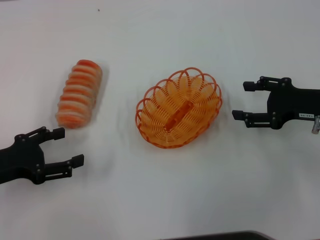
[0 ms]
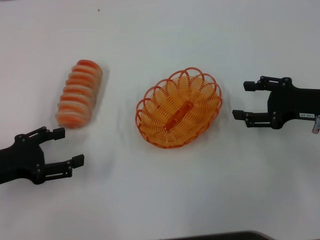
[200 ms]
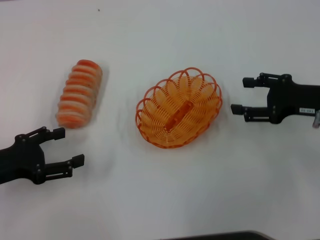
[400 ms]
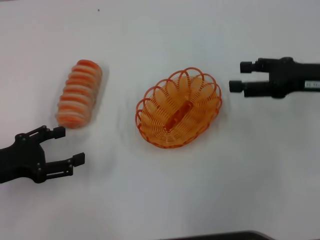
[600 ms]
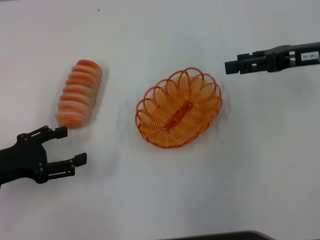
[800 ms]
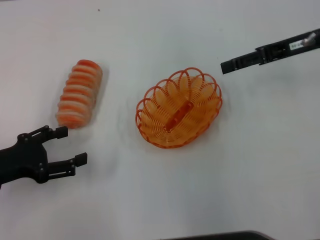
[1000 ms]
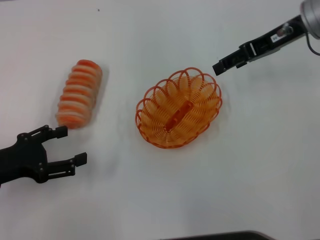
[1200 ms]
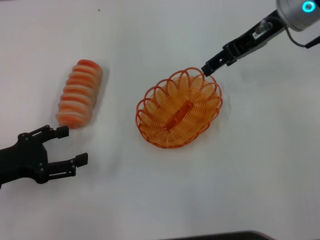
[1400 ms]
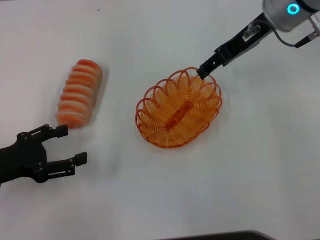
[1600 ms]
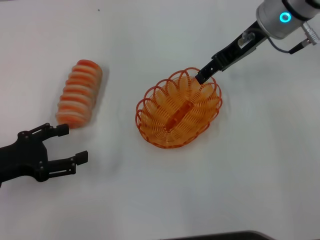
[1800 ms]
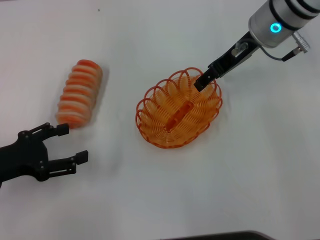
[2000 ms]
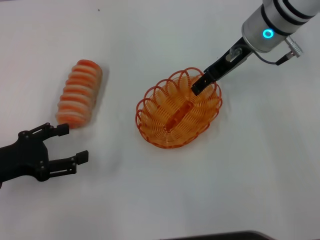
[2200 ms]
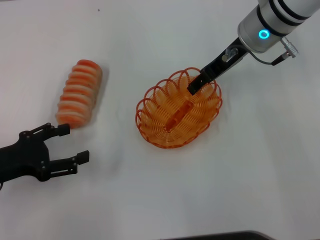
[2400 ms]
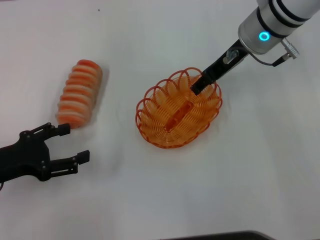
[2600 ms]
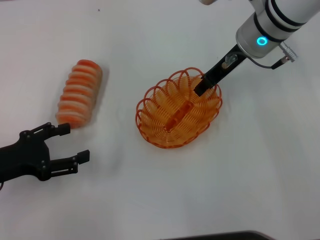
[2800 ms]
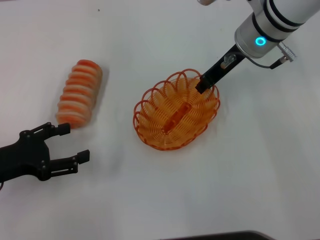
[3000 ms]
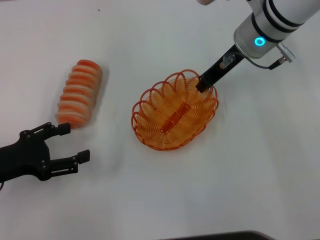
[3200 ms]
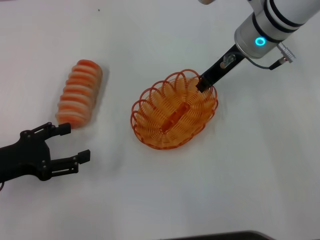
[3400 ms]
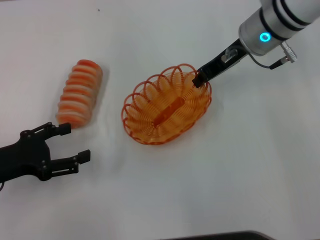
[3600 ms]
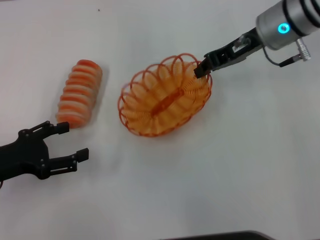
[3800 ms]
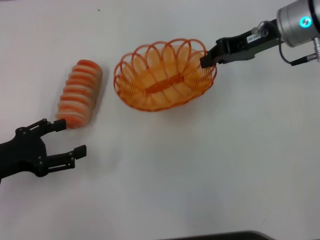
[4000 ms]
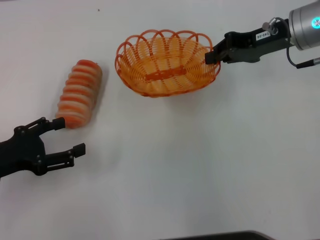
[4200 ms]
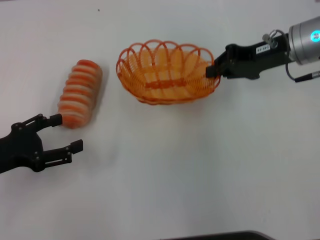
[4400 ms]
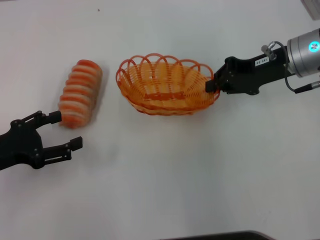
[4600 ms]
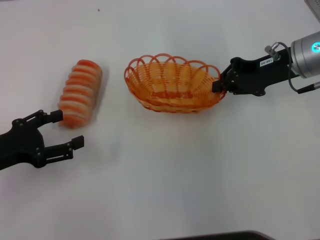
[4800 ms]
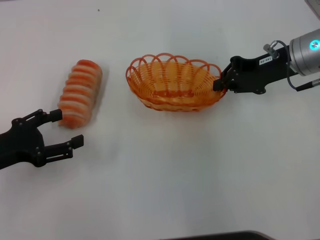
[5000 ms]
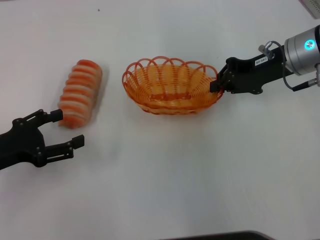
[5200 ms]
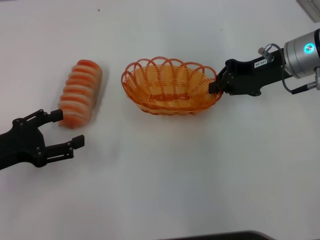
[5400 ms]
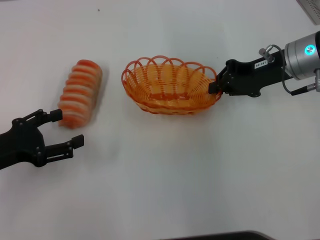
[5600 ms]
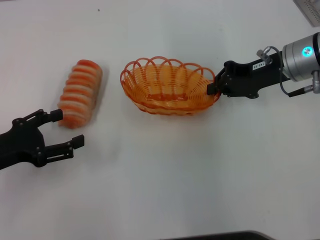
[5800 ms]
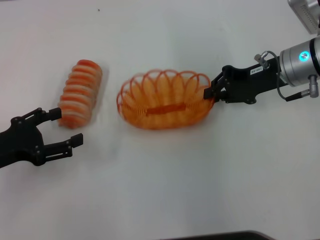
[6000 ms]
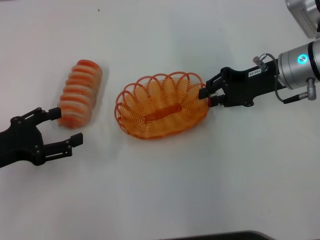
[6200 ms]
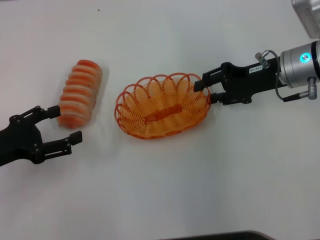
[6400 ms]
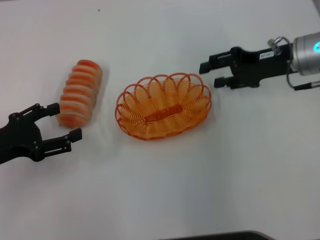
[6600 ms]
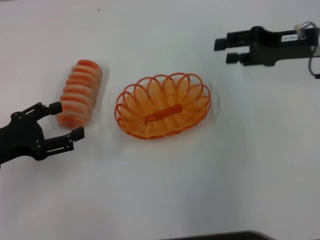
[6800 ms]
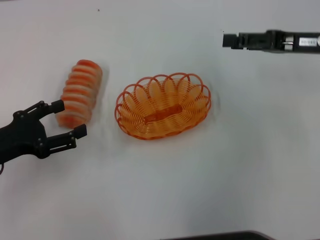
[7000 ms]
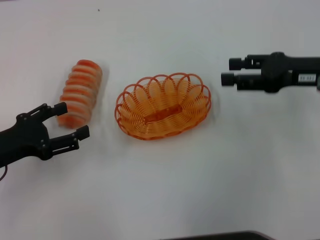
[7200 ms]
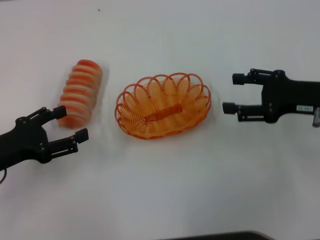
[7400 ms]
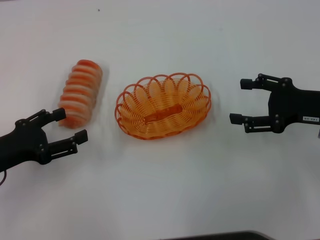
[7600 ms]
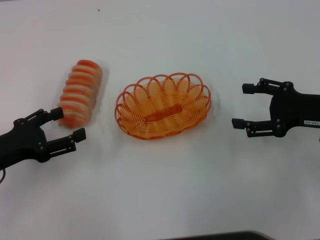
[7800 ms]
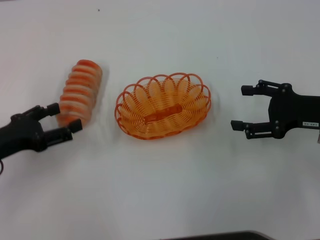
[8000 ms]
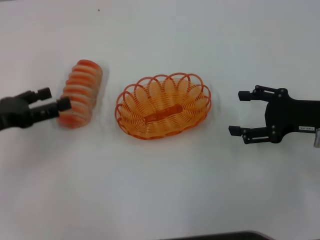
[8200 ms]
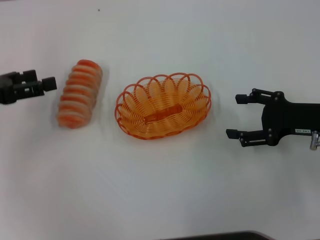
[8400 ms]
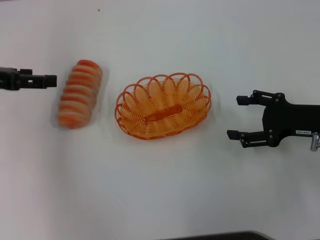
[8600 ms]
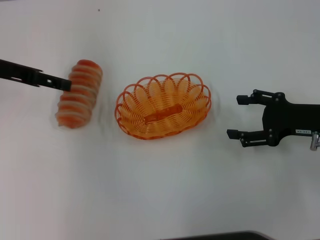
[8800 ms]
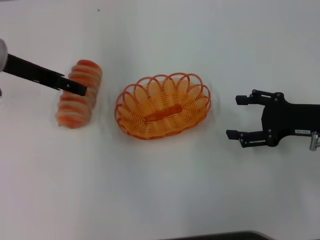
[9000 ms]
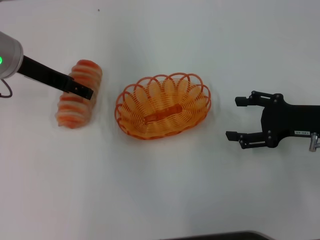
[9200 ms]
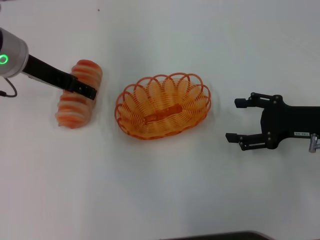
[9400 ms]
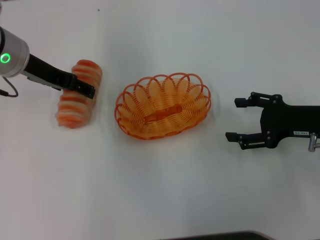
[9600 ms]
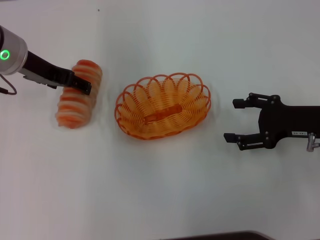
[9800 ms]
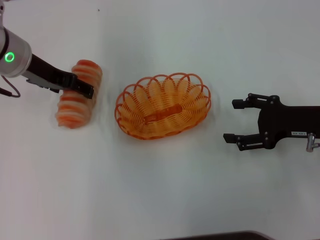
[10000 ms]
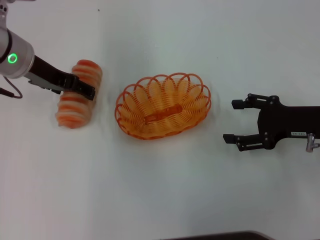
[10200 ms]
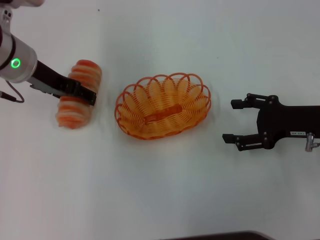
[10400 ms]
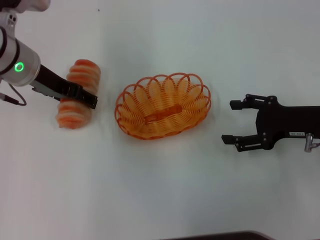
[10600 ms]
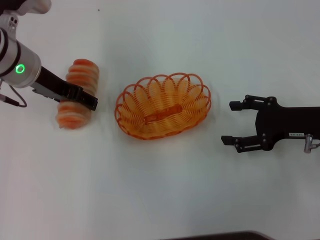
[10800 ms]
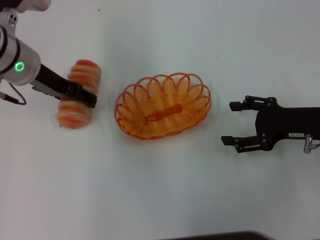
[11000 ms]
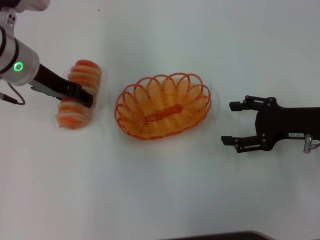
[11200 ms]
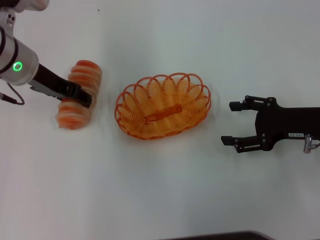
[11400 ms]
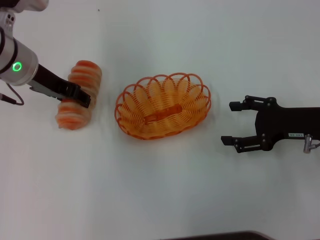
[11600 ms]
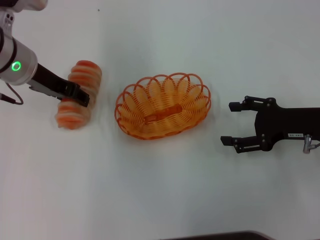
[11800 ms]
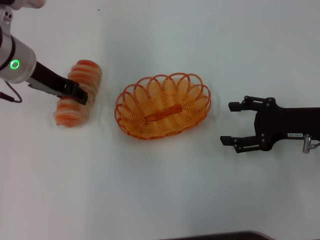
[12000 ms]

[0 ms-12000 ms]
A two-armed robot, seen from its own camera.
Step, 0 ms to 4000 ms: Pick up the basket with the right gripper.
Step, 4200 ms to 6600 ms: Place the basket in the center of view with the right gripper.
0 ms to 1600 ms: The right gripper is displaced forward, upward and to the left by roughly 20 cm.
1600 ms to 3000 ms: The right gripper shifts by approximately 5 cm, and closes its fingers.
3000 ms to 4400 ms: The right gripper is displaced to the right by approximately 10 cm, and closes.
4400 ms to 6000 ms: There are only small adjustments of the grippers.
6000 ms to 7600 ms: The right gripper heads backward and to the right, covering roughly 10 cm, and opens up.
7600 ms to 9000 ms: The left gripper shifts about 20 cm forward, upward and to the right.
9000 ms to 10400 ms: The grippers move only a little.
10400 ms to 12000 ms: The left gripper closes.

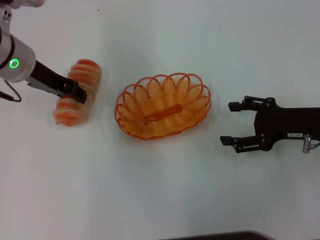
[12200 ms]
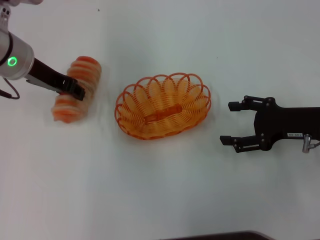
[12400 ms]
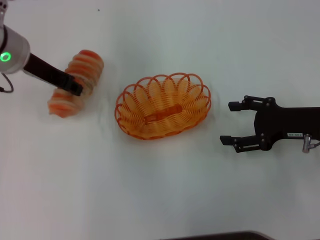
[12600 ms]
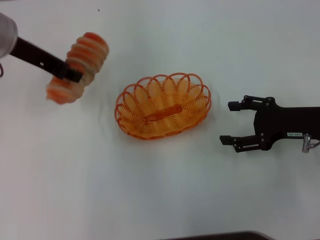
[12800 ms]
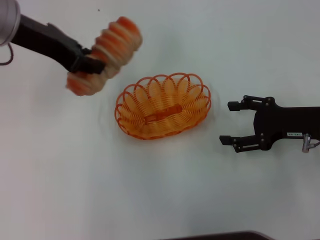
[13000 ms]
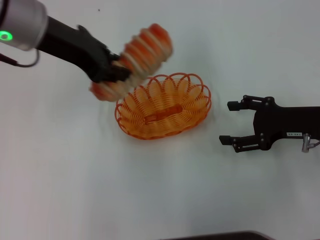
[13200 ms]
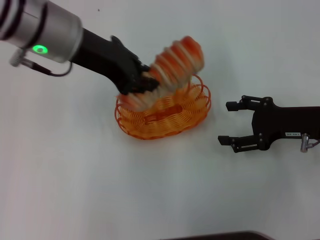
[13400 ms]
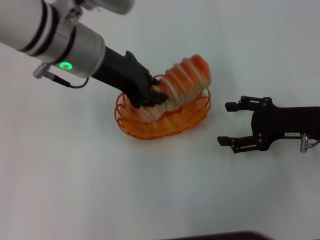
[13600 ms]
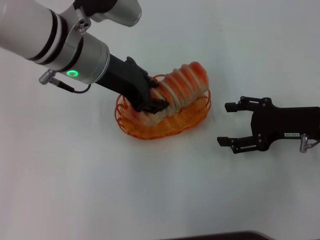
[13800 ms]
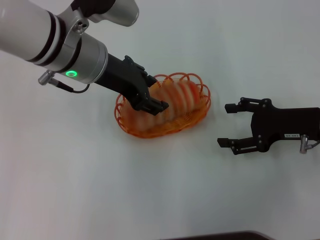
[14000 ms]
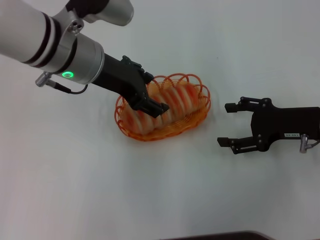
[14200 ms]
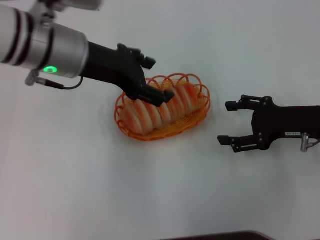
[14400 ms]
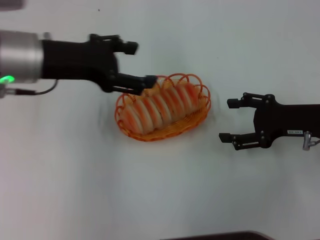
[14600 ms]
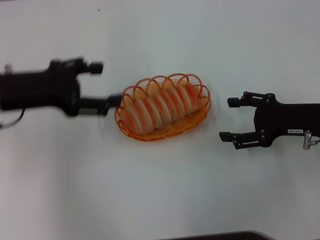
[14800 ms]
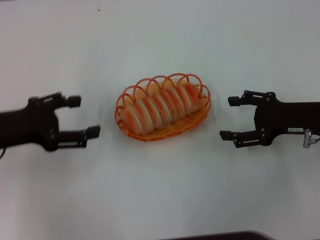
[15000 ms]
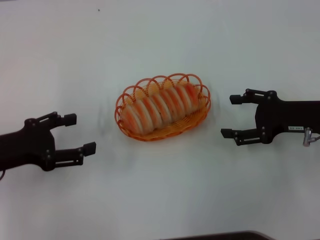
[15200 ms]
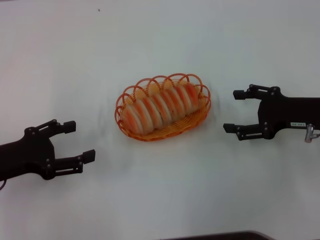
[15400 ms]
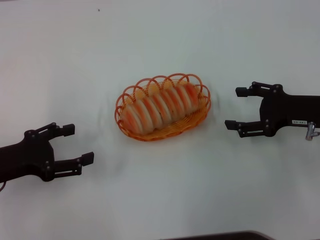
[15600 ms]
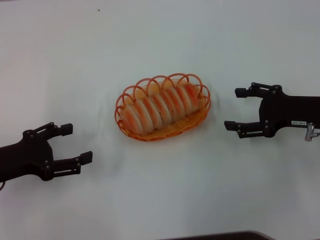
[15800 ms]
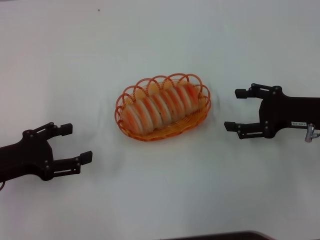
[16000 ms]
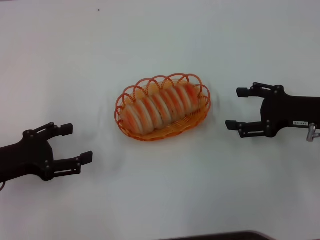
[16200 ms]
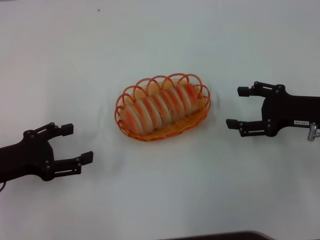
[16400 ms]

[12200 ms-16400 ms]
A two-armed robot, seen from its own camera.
Step, 13000 ms to 14400 ms: Place the long bread into the basket with the left gripper.
12200 ms to 13600 ms: The left gripper travels to the right by some 10 cm, and closes its fingers.
13600 ms to 15000 ms: The left gripper moves to the left, backward and downward, about 20 cm, and opens up.
15000 ms to 16400 ms: The left gripper is displaced downward by roughly 5 cm.

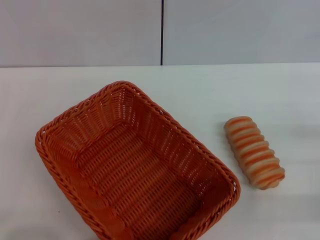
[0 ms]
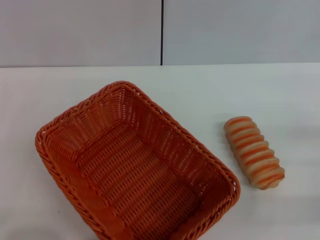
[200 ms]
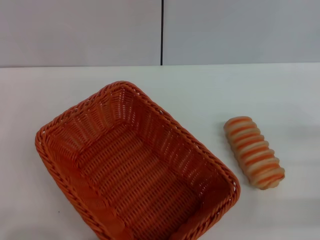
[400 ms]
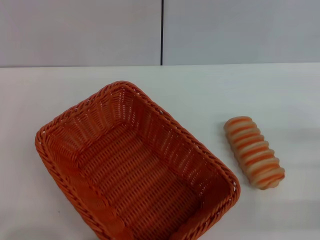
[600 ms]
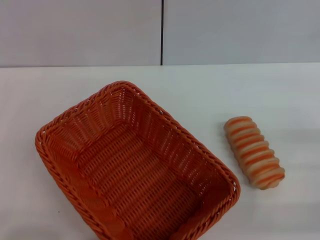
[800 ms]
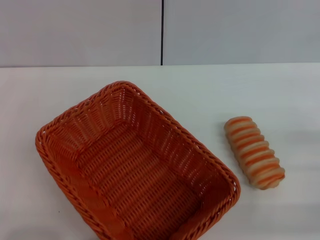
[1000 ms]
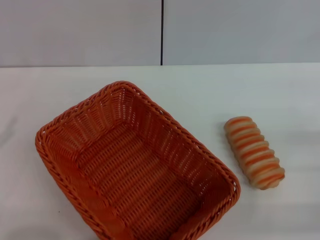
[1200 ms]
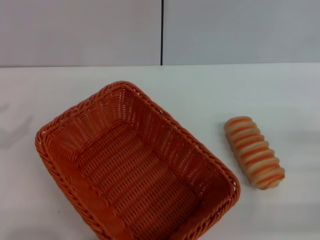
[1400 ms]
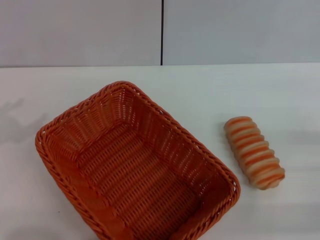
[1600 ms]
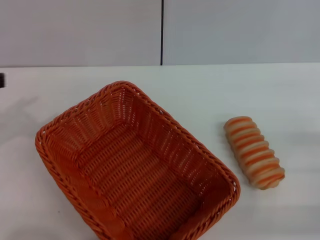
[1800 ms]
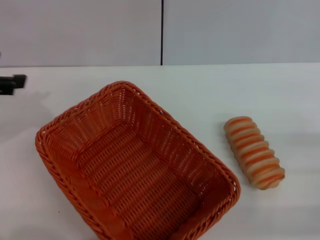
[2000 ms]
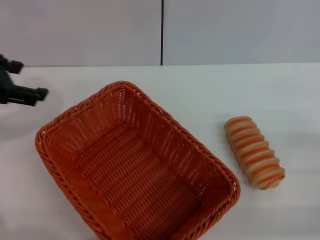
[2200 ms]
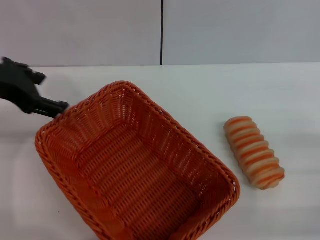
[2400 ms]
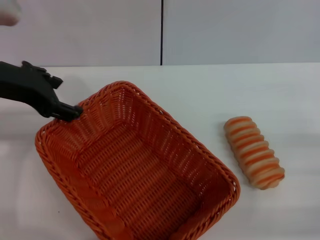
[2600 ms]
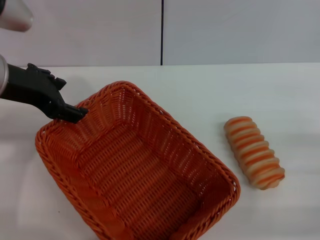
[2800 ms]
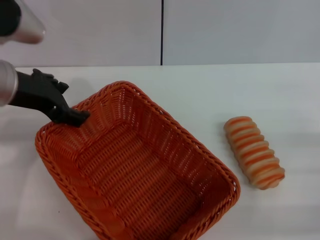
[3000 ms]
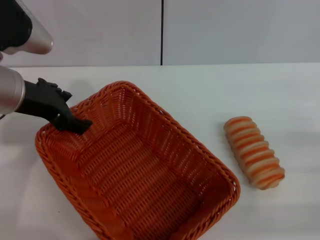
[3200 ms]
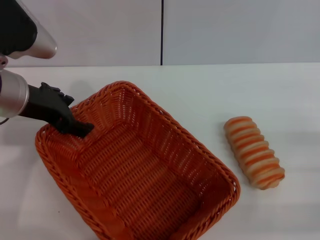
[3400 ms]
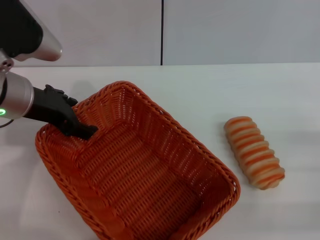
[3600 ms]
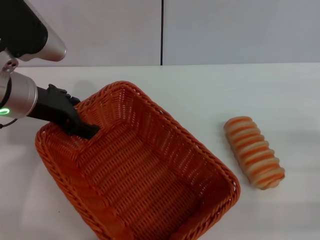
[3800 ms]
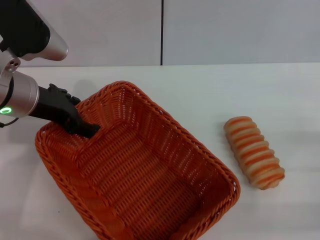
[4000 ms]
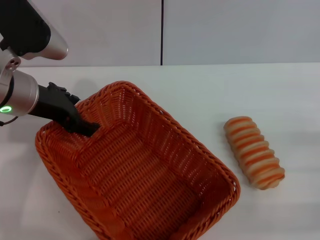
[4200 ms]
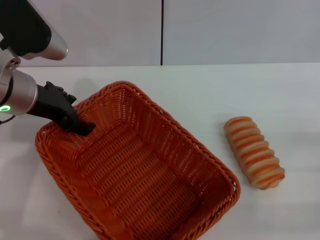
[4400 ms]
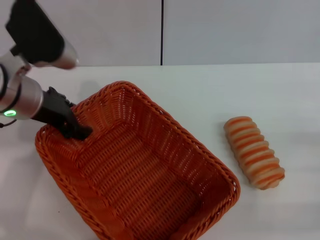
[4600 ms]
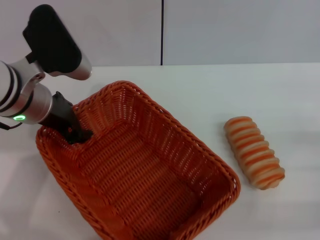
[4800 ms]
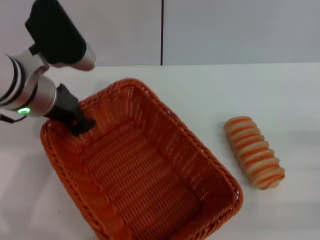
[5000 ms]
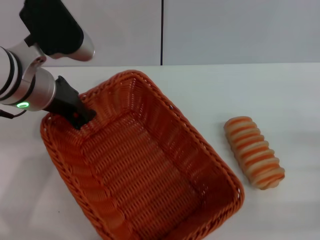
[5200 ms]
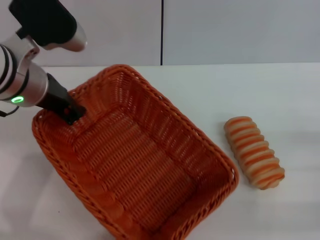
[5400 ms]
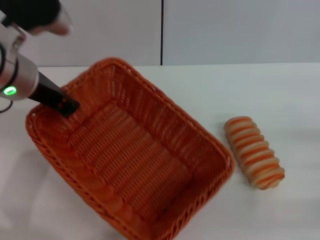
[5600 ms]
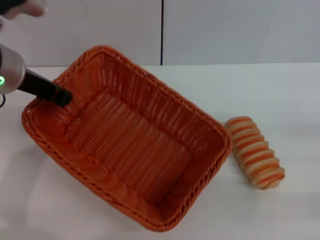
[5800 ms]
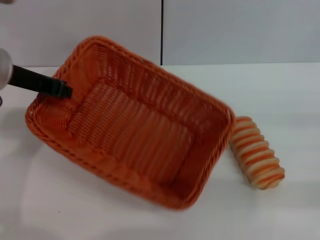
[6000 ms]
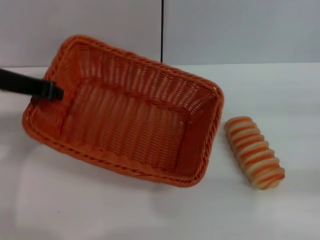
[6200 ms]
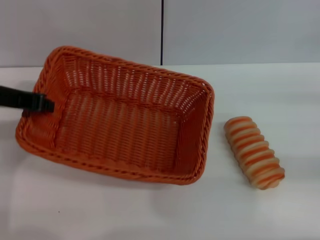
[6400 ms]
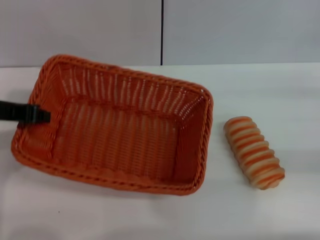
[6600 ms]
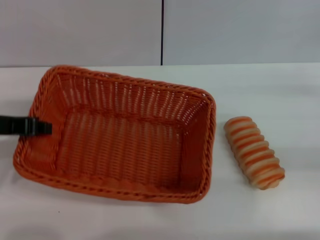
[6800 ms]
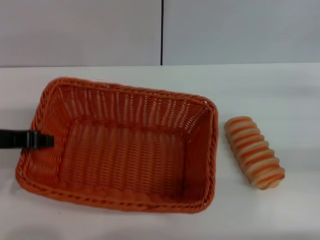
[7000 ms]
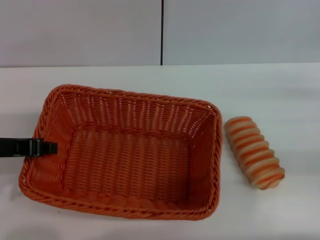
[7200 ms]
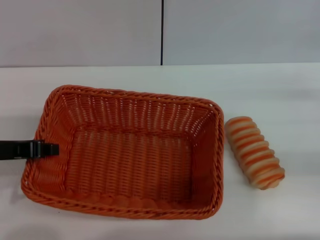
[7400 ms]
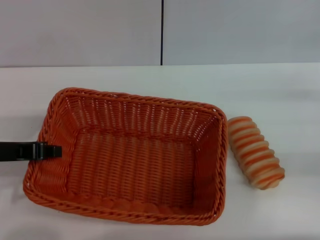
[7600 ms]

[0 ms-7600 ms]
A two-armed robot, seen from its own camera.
Step, 0 ms to 5800 ms: Pick up the light basket with the left gripper.
1600 ms to 3000 ms: The left gripper heads to the right and forward, covering about 20 cm.
3000 ms to 4600 ms: The grippers make only small movements.
4600 ms to 6000 ms: The right gripper ends up about 5 cm from where it was, while the left gripper closes up.
6000 ms to 7600 ms: The left gripper travels backward by about 10 cm; the right gripper shifts approximately 5 cm forward.
